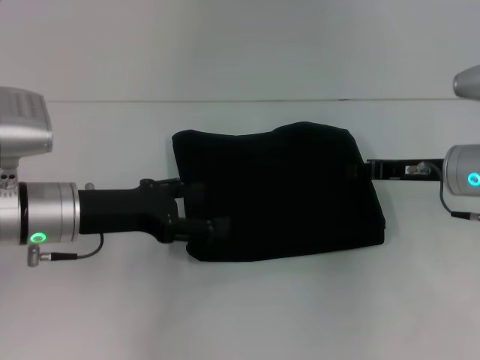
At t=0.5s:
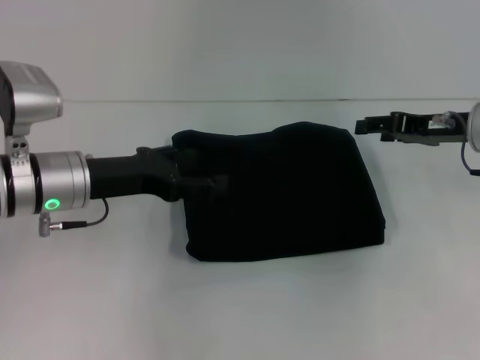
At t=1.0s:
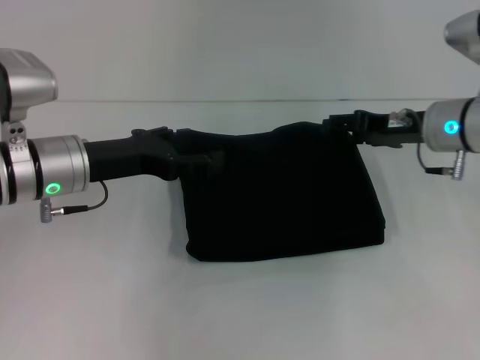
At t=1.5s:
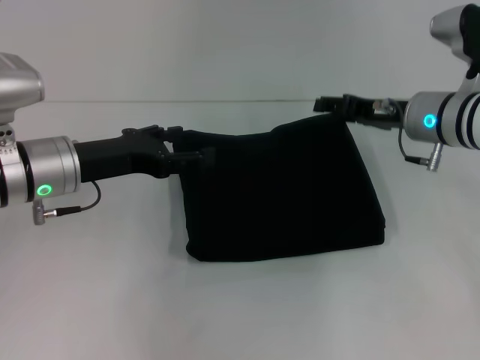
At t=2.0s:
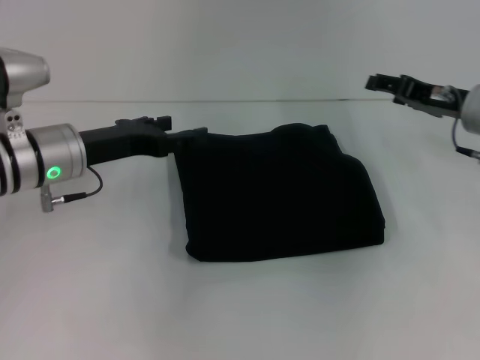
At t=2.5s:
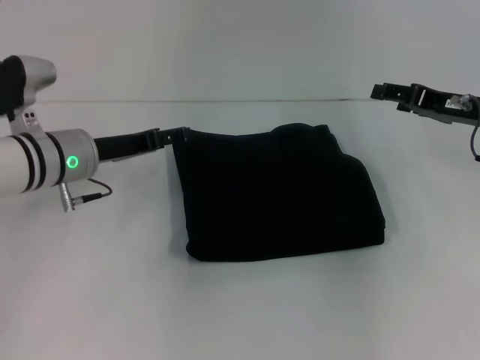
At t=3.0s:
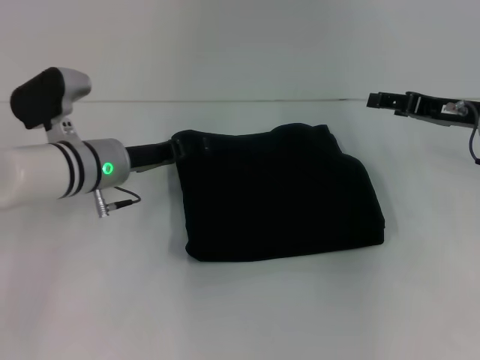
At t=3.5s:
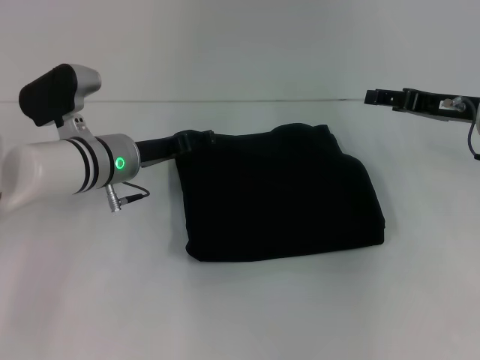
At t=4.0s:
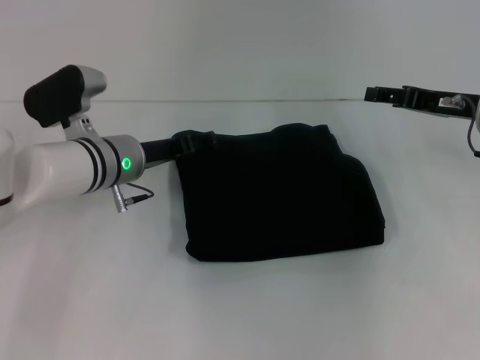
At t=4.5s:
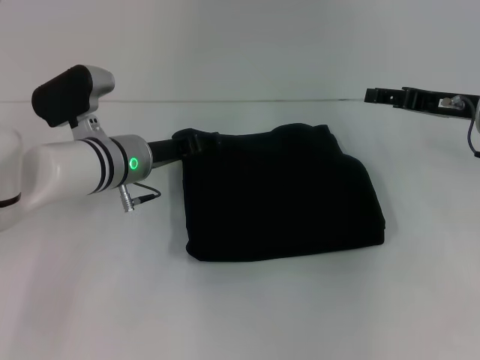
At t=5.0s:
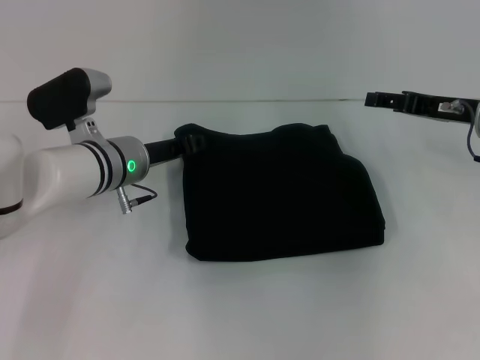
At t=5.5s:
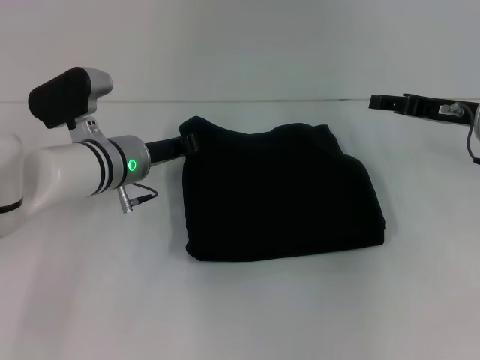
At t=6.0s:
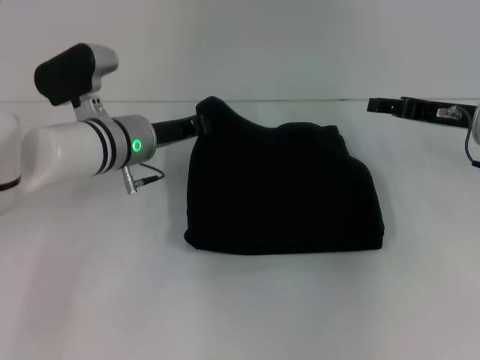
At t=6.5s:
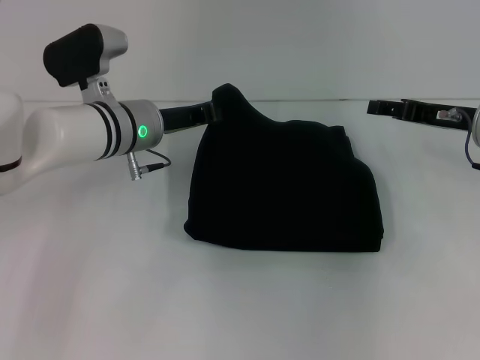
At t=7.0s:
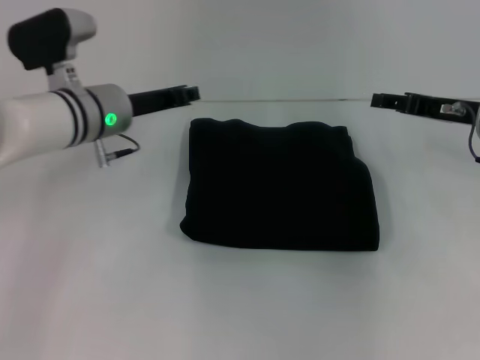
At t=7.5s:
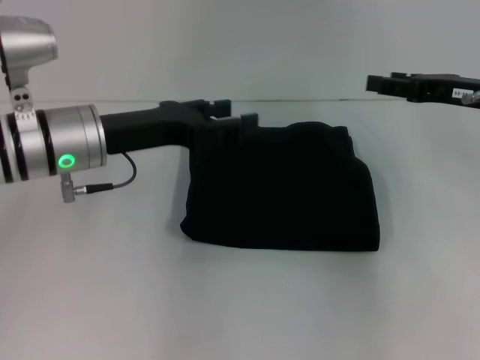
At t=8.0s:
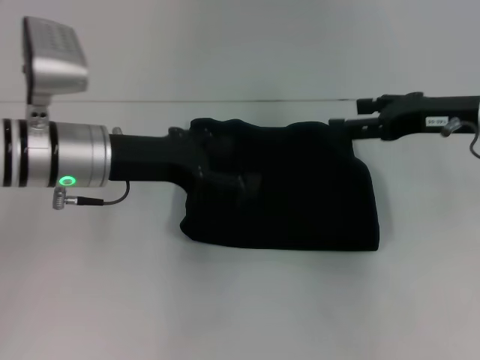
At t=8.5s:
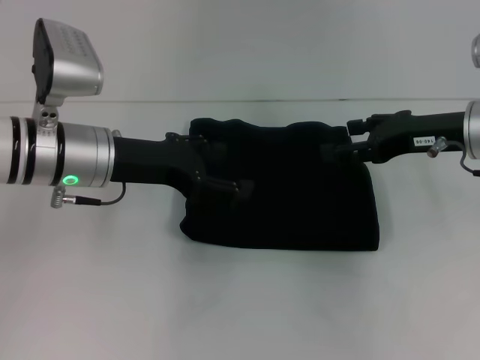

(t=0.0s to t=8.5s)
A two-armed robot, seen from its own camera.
t=0.0s - t=2.0s: The right gripper shifts by about 5 cm, and opens its fingers; the left gripper shifts by roughly 5 cm.
t=2.0s - t=4.0s: The left gripper shifts some 5 cm to the right.
t=4.0s - t=6.5s: The left gripper closes.
t=6.5s - t=8.5s: The left gripper shifts some 5 cm backward, and opens up, while the right gripper moves approximately 5 cm.

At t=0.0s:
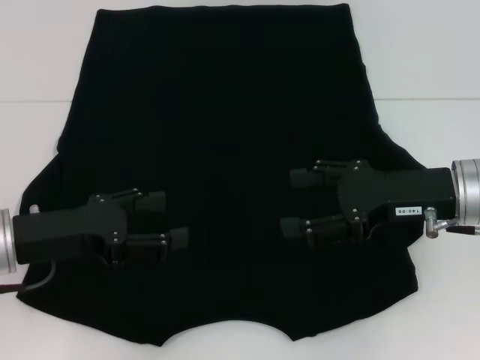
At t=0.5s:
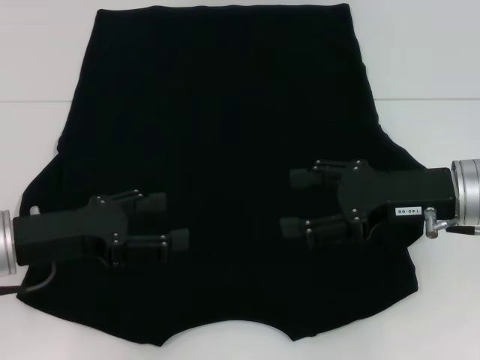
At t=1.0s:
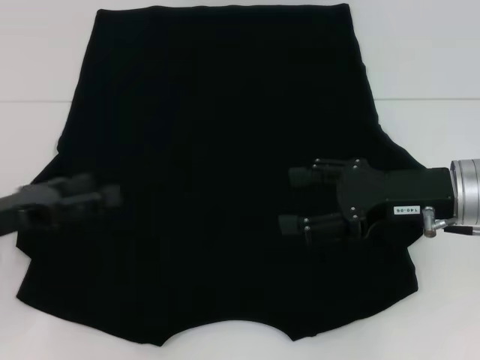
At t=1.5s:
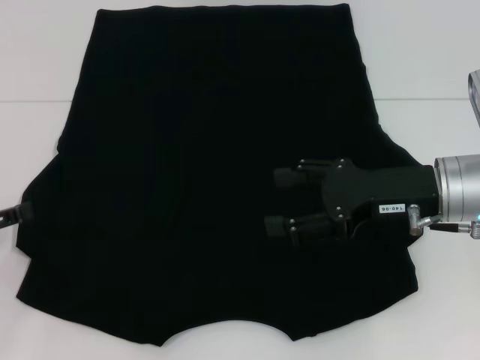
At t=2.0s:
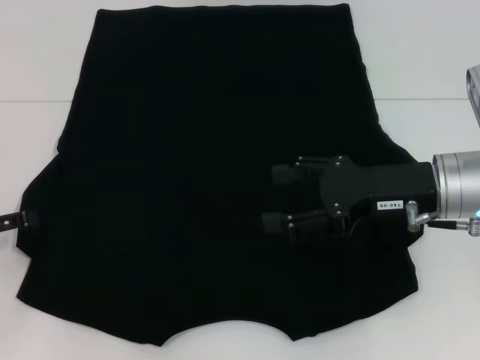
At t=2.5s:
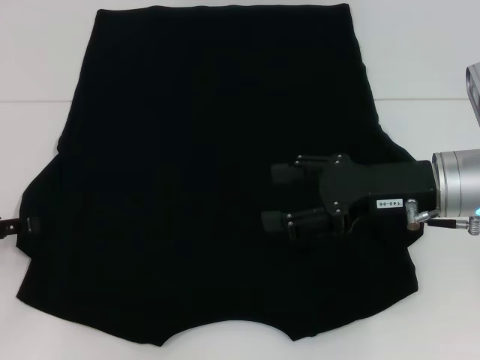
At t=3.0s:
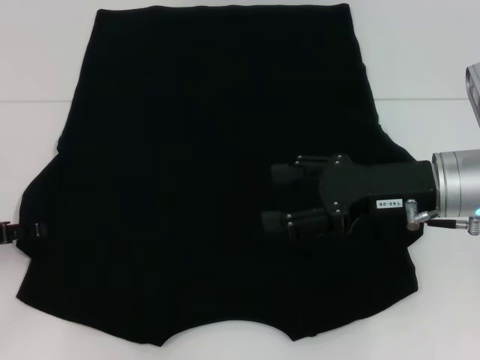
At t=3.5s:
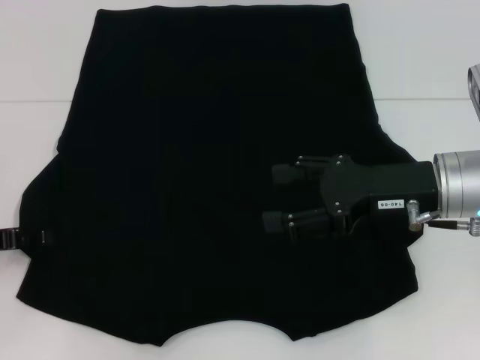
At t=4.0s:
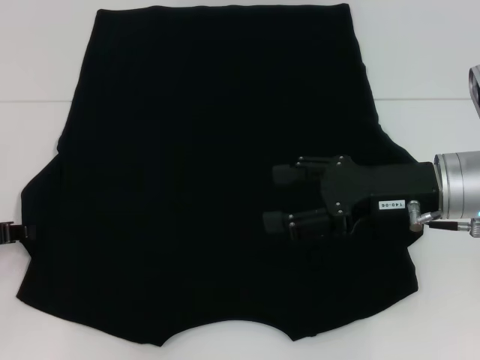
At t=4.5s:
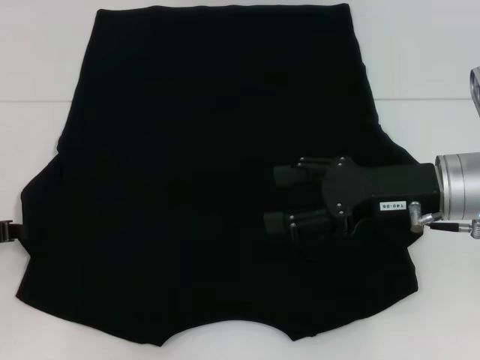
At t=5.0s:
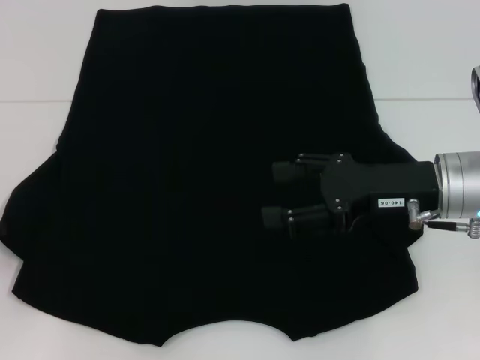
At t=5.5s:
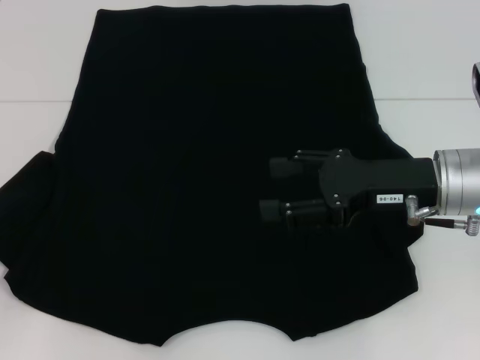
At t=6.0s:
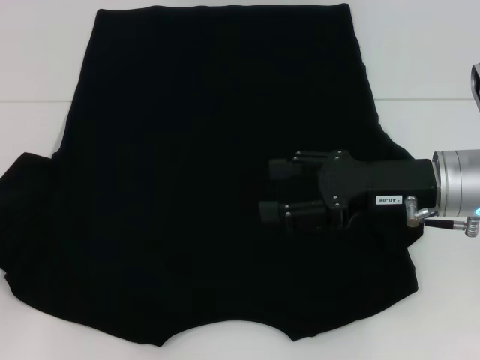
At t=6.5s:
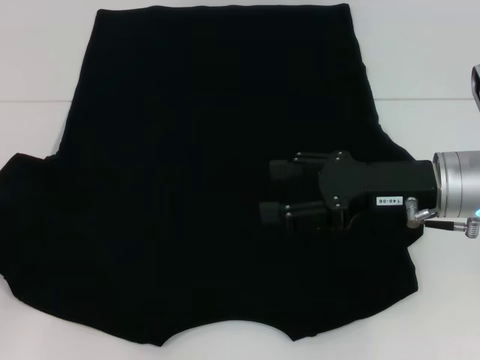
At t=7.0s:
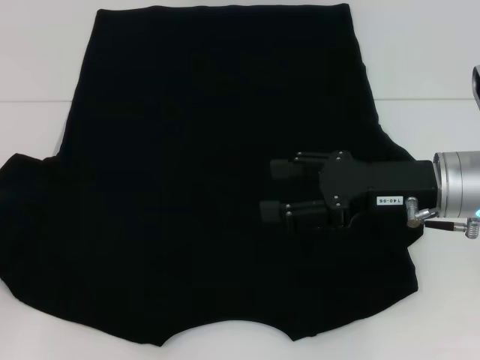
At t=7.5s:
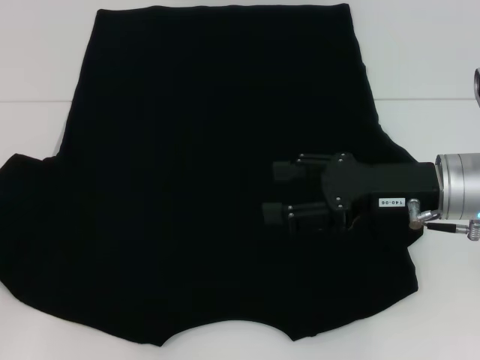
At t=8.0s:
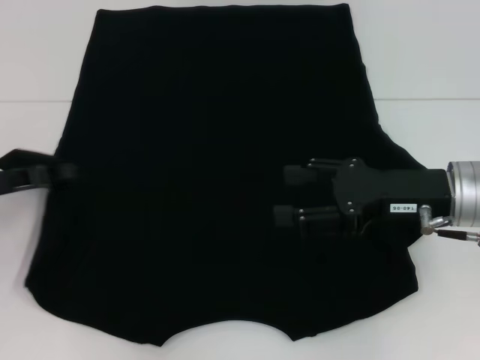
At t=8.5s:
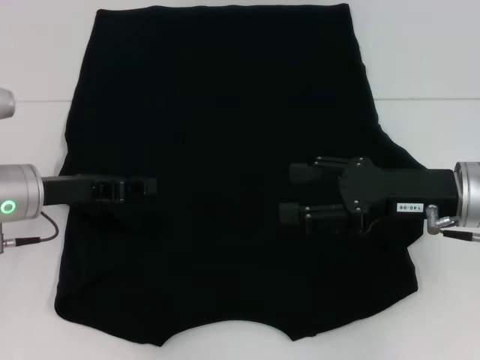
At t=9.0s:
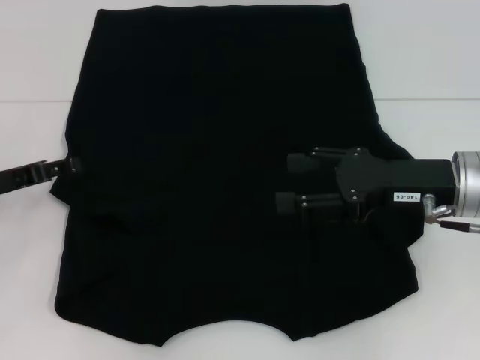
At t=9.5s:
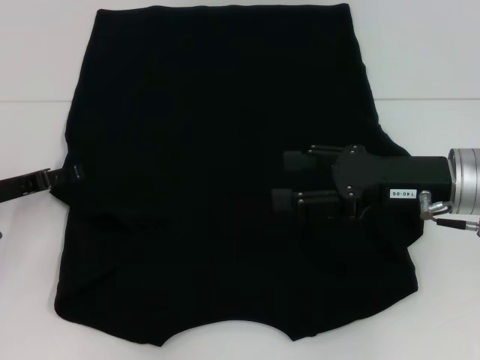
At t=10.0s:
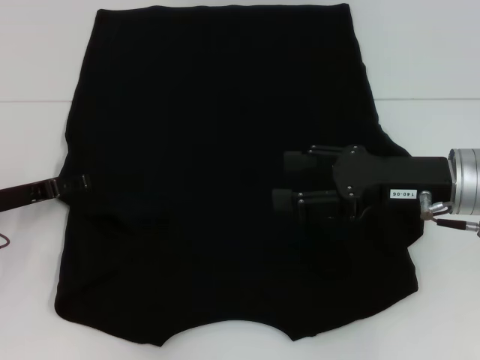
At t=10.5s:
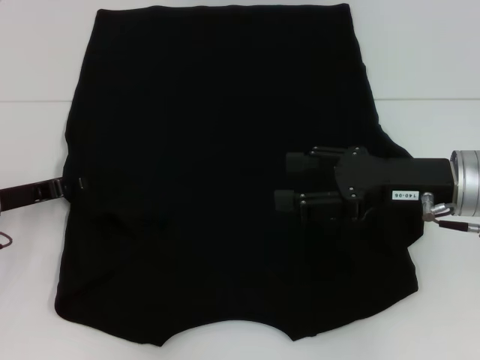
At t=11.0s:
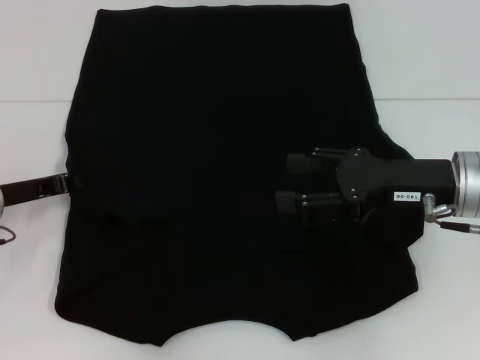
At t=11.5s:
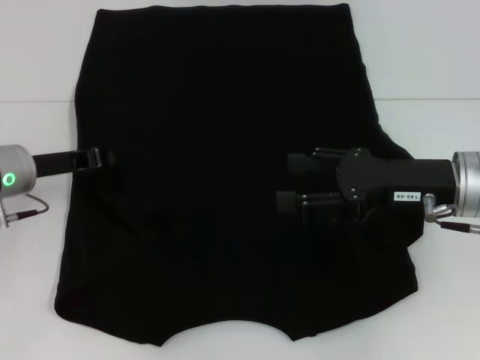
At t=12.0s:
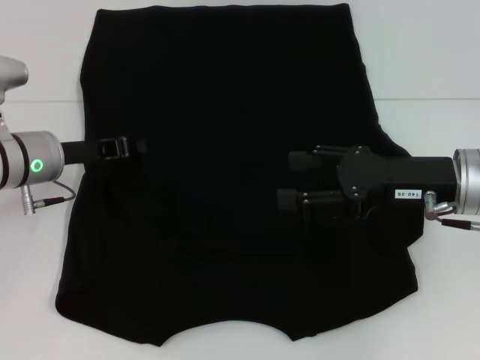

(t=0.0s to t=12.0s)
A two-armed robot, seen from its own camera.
t=0.0s - t=2.0s: The left gripper shifts about 10 cm to the left.
t=4.0s - t=6.0s: The left gripper closes its fingers.
t=6.0s - t=8.0s: The left gripper travels to the right by some 5 cm.
t=8.0s - t=10.0s: The left gripper shifts by roughly 5 cm, and opens up.
t=10.0s - t=12.0s: The left gripper shifts approximately 5 cm to the right, and closes.

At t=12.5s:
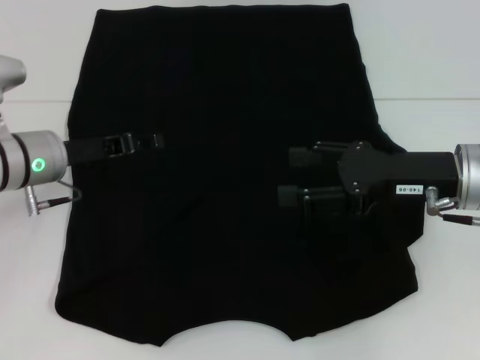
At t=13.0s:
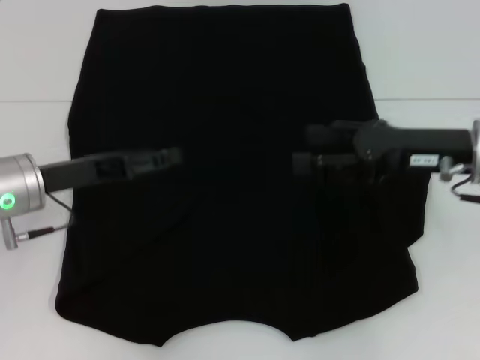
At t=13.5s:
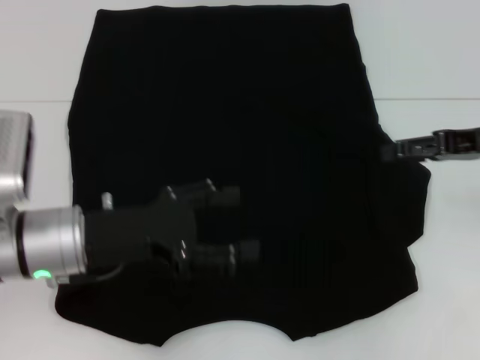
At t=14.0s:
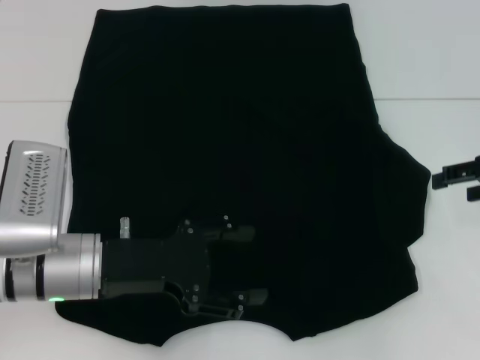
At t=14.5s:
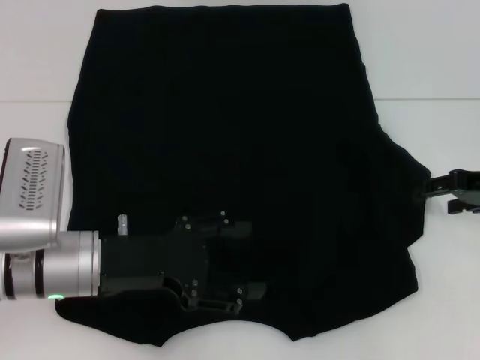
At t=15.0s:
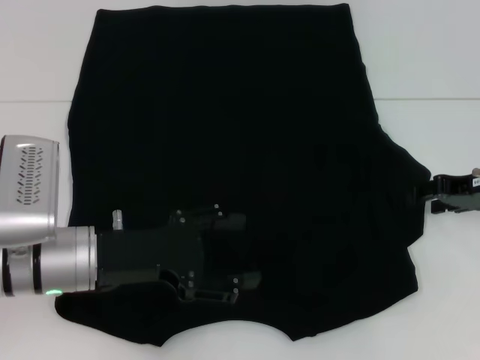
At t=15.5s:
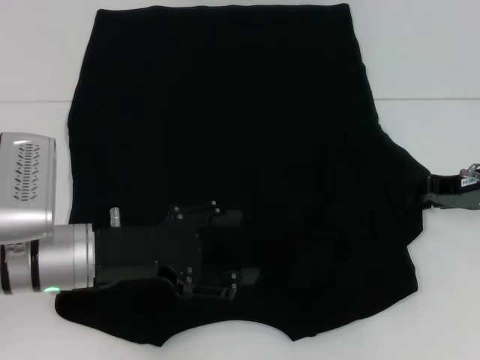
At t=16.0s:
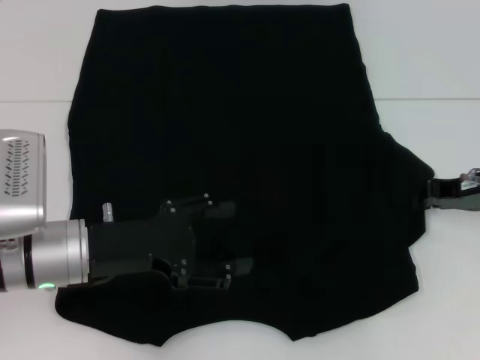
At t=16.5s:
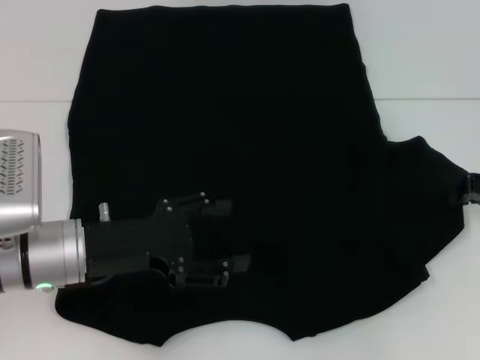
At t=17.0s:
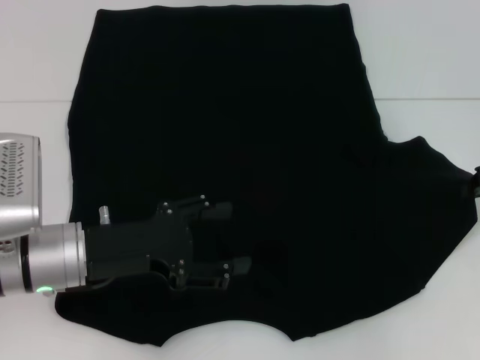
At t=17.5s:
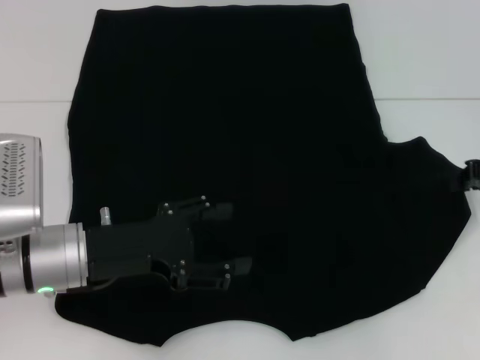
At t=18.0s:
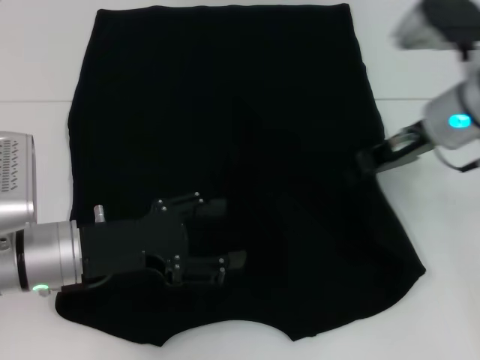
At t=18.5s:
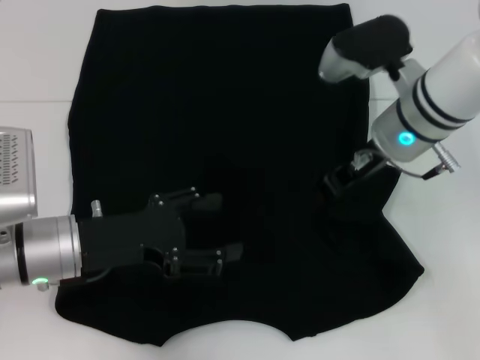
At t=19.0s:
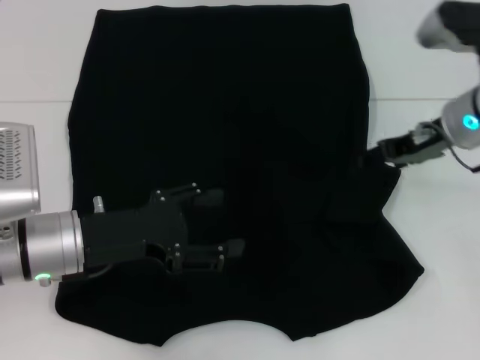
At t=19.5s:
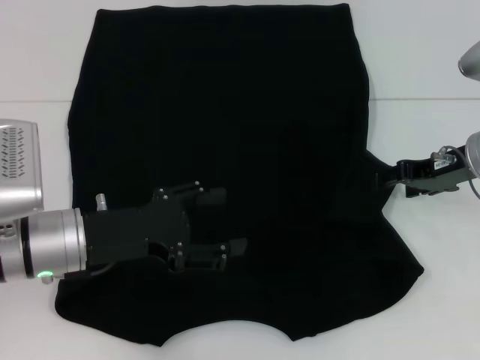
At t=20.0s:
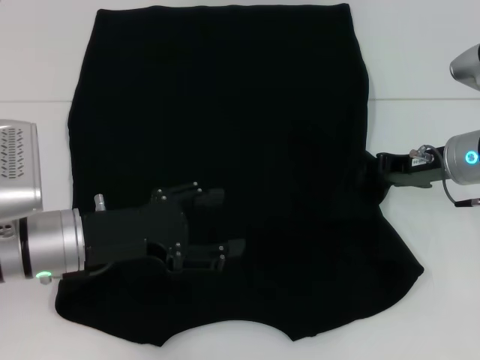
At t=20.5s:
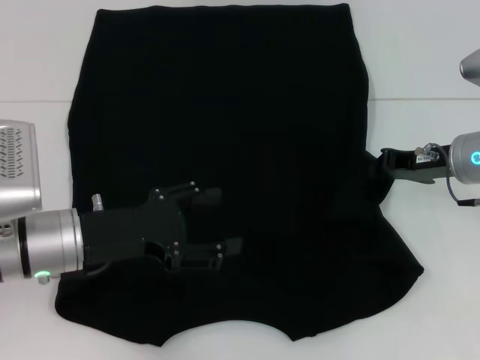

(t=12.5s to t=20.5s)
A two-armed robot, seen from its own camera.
t=12.5s - t=14.5s: The right gripper moves to the right, some 10 cm, while the left gripper travels backward and to the right by roughly 10 cm, and opens up.
t=14.5s - t=16.5s: The right gripper closes its fingers.
t=16.5s - t=18.5s: The right gripper is displaced to the left by some 20 cm.
t=18.5s - t=20.5s: The right gripper goes about 10 cm to the right and downward, and opens, then closes once more.
